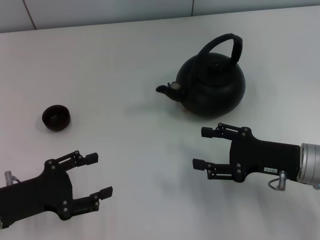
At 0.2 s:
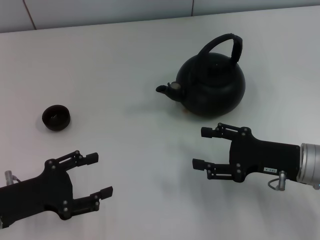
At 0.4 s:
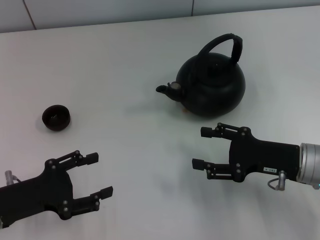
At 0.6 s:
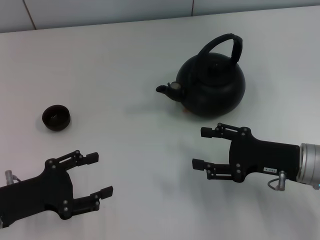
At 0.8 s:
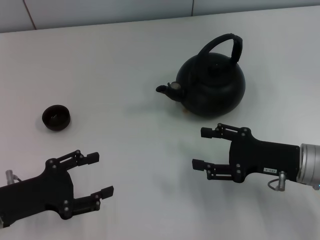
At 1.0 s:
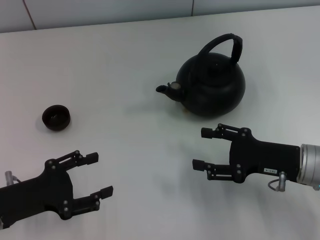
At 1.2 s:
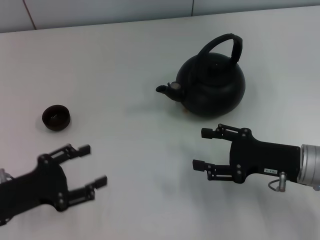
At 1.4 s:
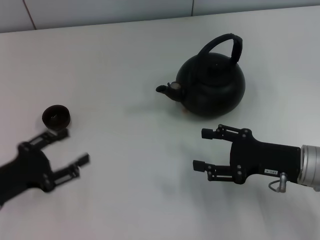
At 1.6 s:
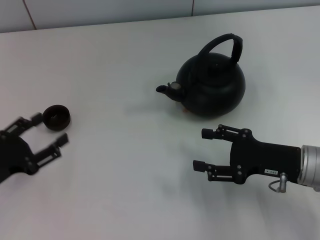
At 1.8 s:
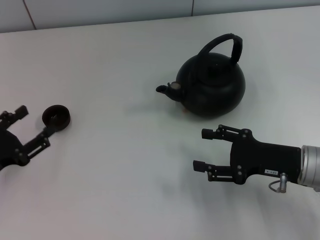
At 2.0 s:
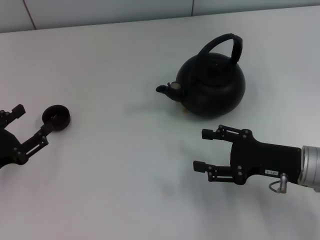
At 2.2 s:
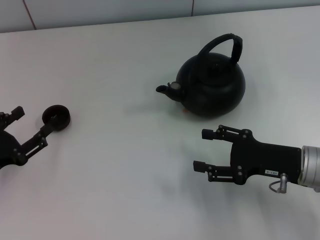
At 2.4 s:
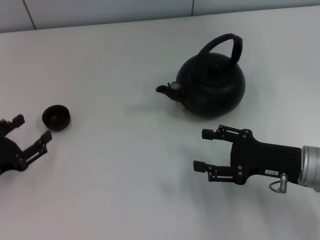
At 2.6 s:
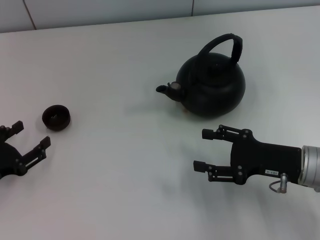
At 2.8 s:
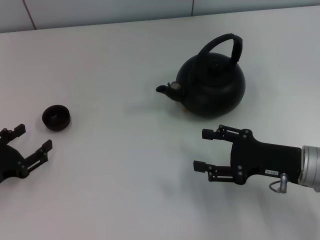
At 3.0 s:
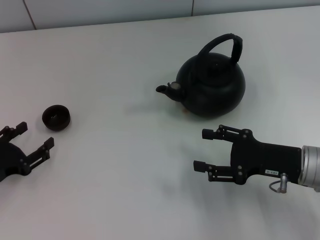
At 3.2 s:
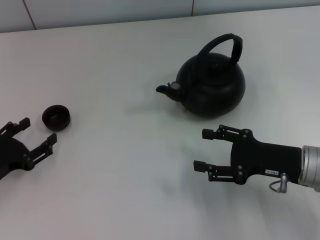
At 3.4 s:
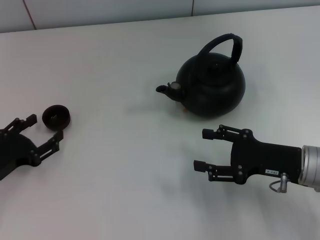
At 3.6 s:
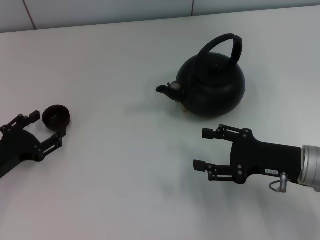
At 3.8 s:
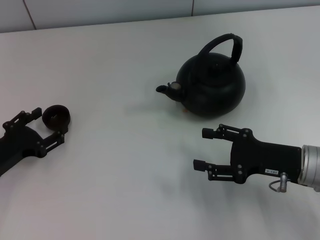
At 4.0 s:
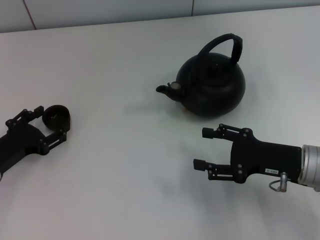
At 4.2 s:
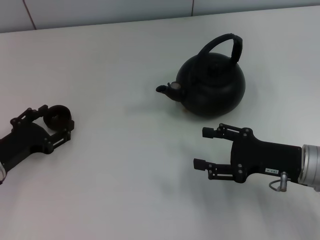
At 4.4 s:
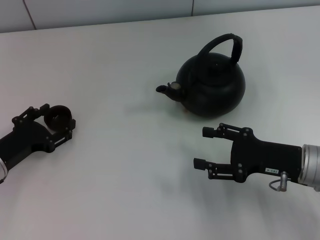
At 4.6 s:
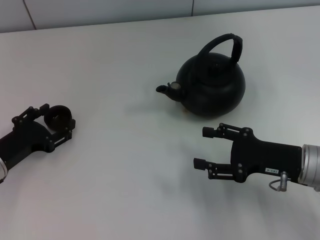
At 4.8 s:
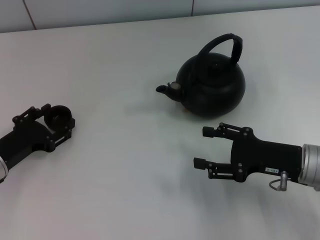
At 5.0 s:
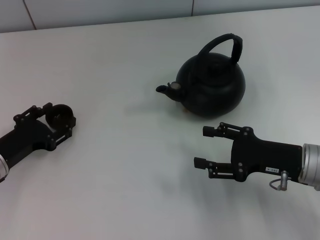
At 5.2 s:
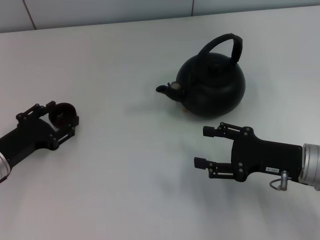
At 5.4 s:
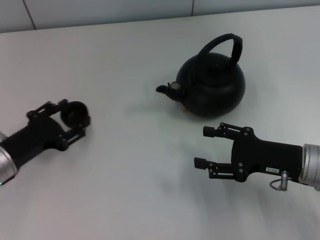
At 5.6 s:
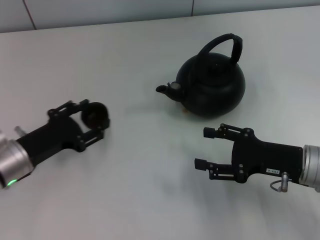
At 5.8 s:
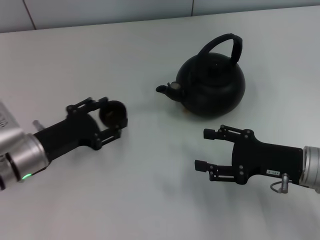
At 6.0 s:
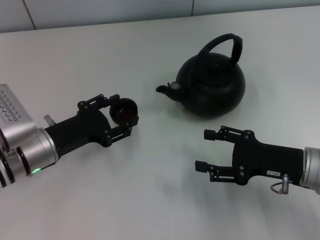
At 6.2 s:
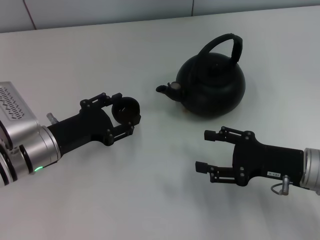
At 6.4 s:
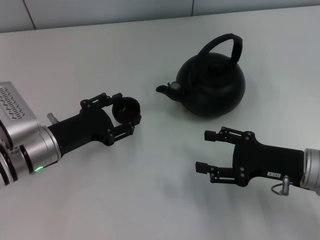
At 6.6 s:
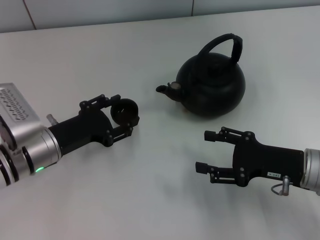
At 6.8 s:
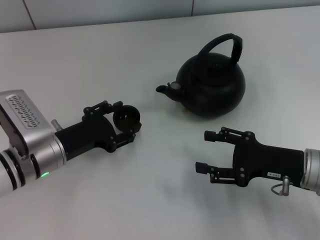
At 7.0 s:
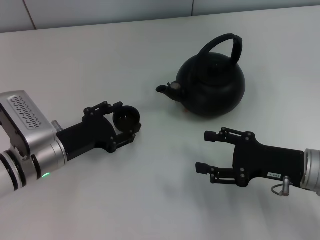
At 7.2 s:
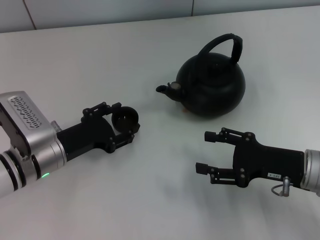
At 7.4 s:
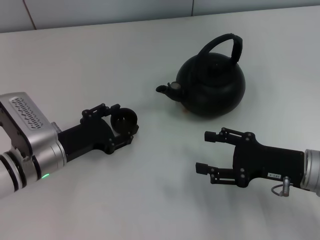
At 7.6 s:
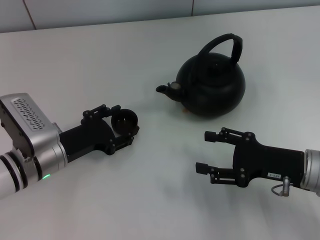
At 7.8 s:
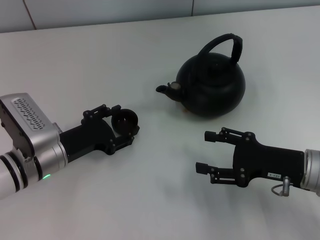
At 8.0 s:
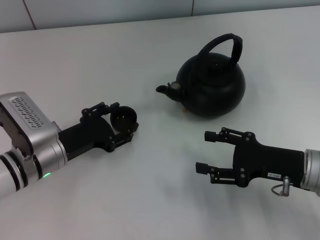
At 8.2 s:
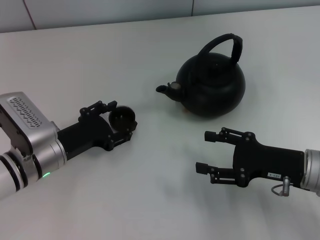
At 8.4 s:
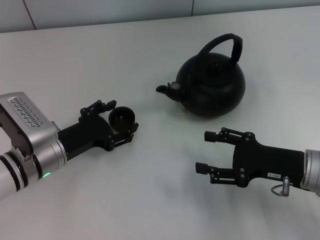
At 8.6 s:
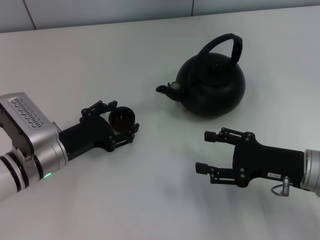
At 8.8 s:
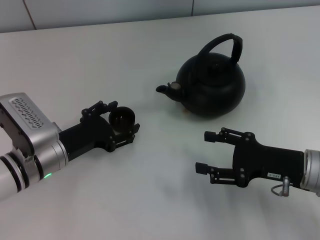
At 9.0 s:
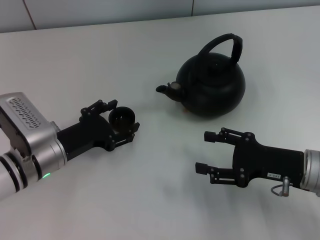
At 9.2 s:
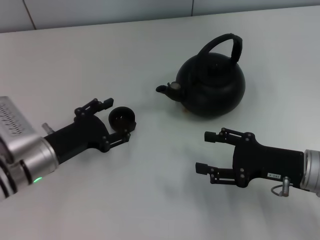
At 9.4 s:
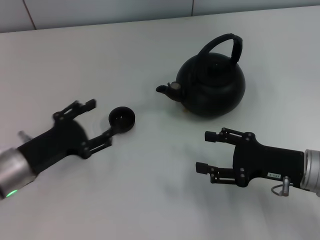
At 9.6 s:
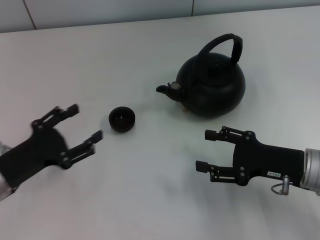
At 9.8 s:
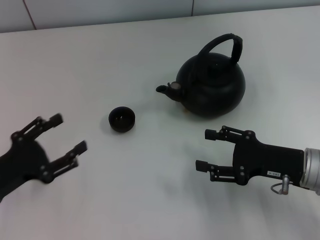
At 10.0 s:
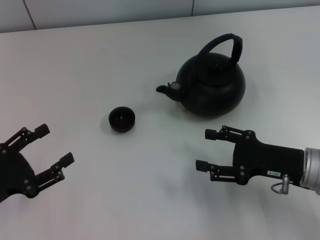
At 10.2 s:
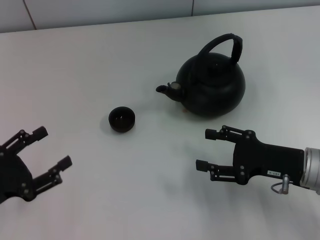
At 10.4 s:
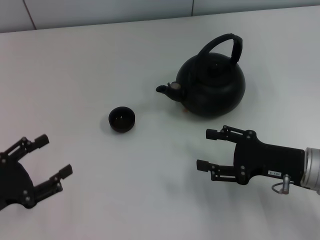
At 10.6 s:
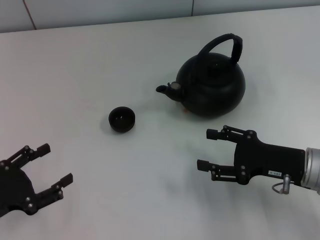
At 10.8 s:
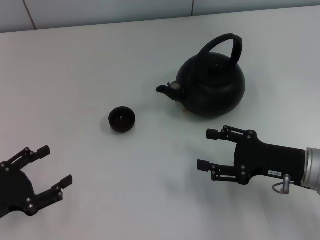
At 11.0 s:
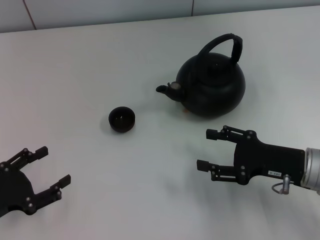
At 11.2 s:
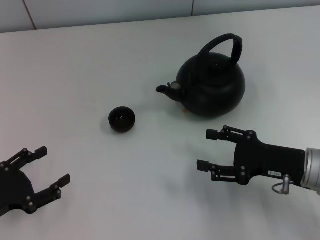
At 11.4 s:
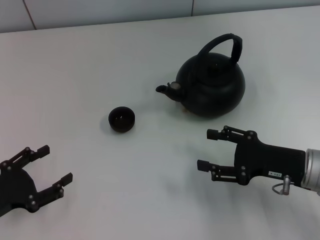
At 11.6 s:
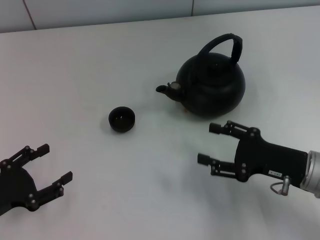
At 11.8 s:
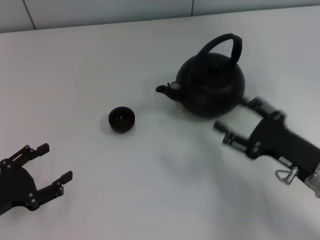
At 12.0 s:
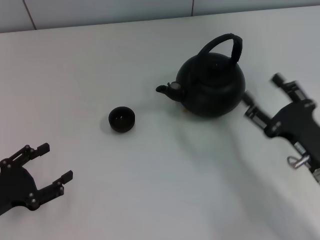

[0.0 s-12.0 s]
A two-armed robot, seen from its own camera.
Task of the whole recording: Grasp the handle of the teapot with one hand and pour tea into the teacup.
Step, 0.0 to 5.2 s: Pick up the teacup with the left gripper.
Step, 5.6 to 9.4 s: Place the teacup in the center of view with the left gripper.
1.6 to 3.0 s: The grippers make only small movements.
3.0 to 4.4 s: The left gripper changes place by about 5 cm.
4.4 to 6.0 s: The left gripper moves to the right, some 10 cm, and closes up.
6.0 to 7.6 s: The grippers stay close to where they were, moving slightly.
7.6 to 9.0 s: The left gripper opens.
9.0 to 10.4 s: The left gripper moves to the left and backward, approximately 15 cm.

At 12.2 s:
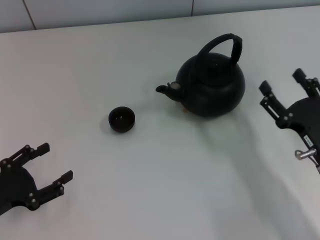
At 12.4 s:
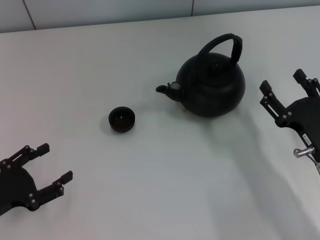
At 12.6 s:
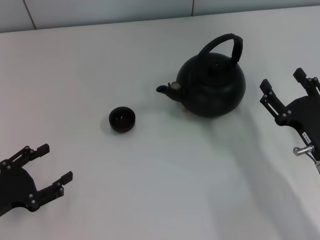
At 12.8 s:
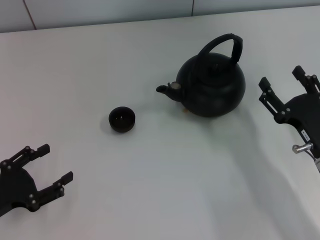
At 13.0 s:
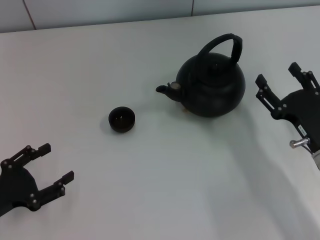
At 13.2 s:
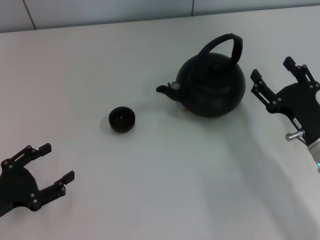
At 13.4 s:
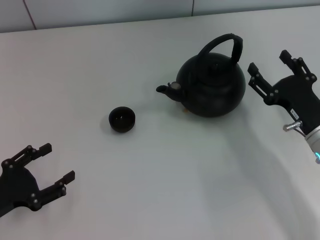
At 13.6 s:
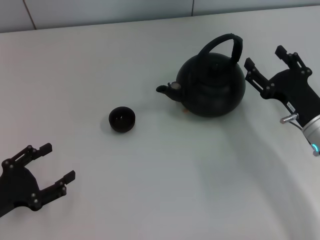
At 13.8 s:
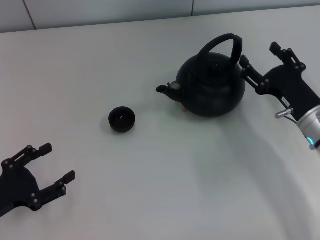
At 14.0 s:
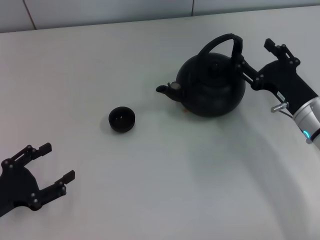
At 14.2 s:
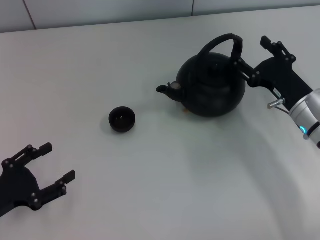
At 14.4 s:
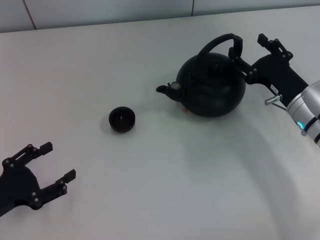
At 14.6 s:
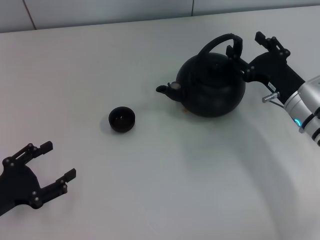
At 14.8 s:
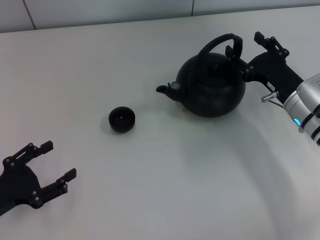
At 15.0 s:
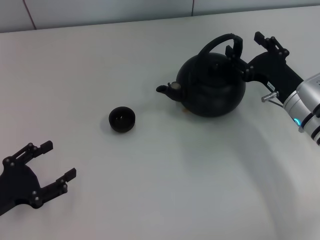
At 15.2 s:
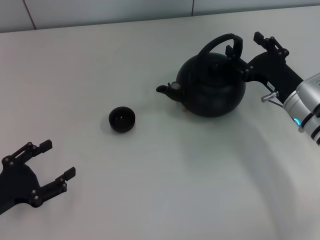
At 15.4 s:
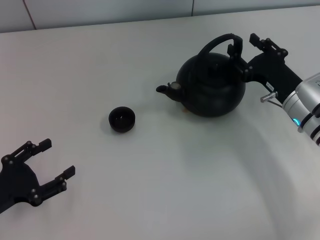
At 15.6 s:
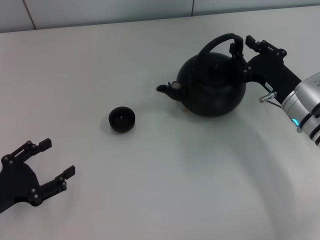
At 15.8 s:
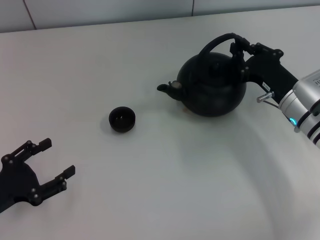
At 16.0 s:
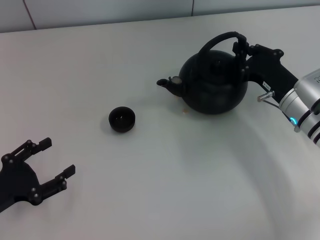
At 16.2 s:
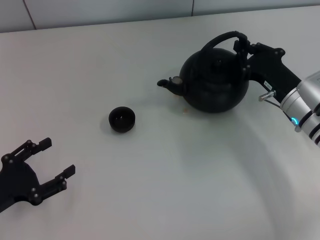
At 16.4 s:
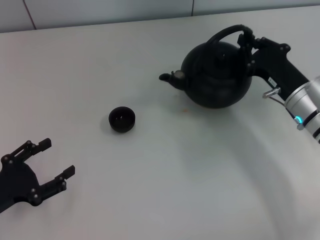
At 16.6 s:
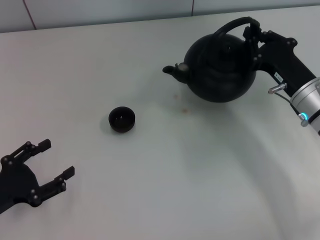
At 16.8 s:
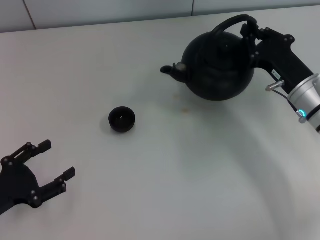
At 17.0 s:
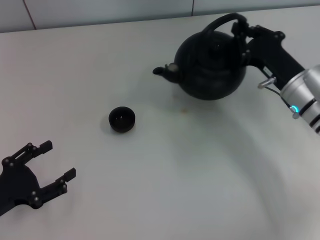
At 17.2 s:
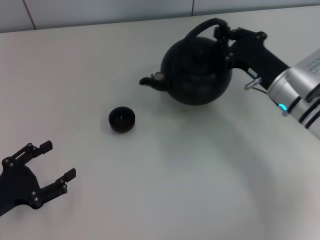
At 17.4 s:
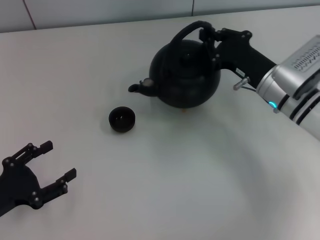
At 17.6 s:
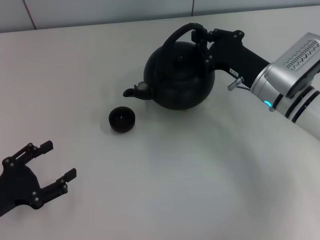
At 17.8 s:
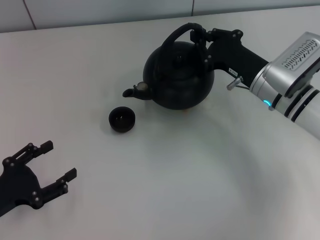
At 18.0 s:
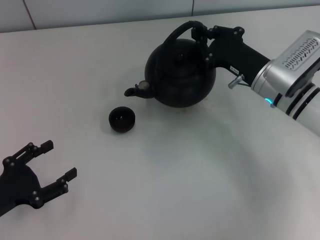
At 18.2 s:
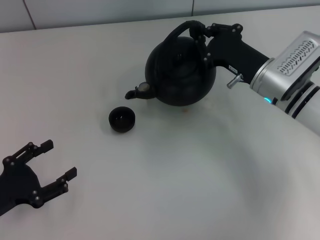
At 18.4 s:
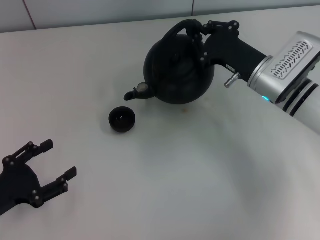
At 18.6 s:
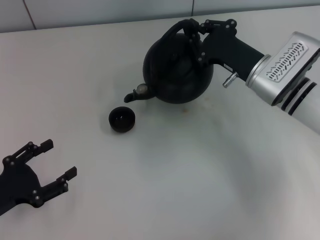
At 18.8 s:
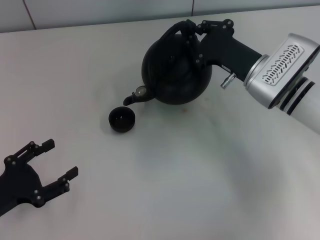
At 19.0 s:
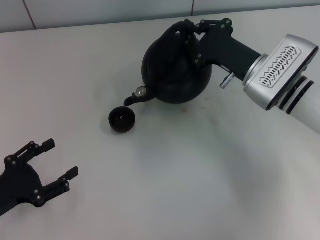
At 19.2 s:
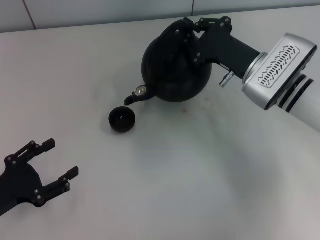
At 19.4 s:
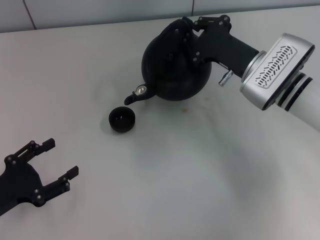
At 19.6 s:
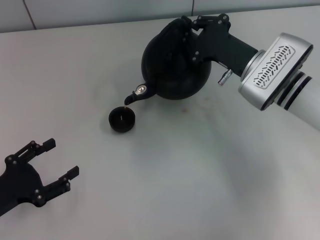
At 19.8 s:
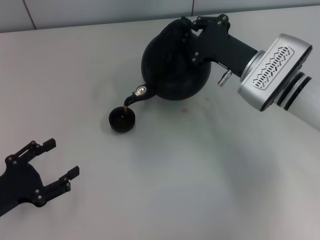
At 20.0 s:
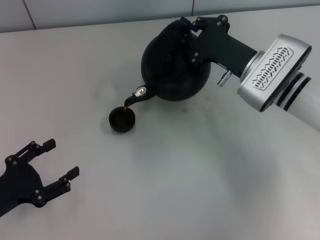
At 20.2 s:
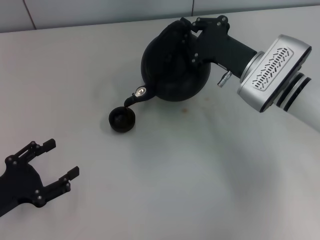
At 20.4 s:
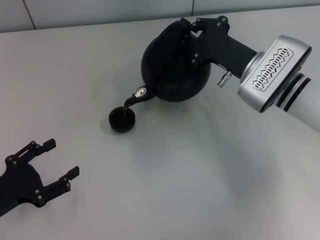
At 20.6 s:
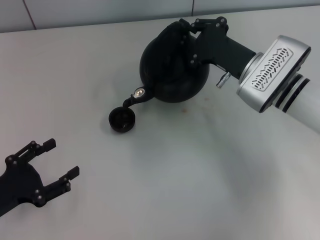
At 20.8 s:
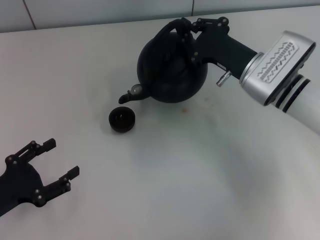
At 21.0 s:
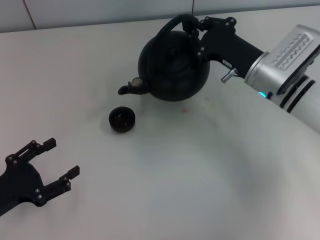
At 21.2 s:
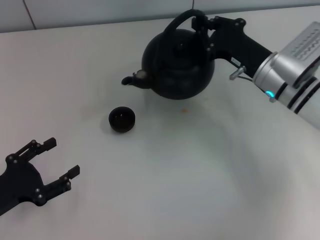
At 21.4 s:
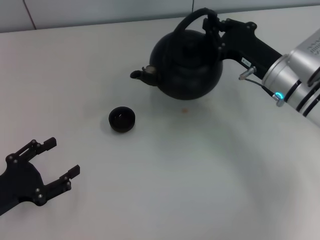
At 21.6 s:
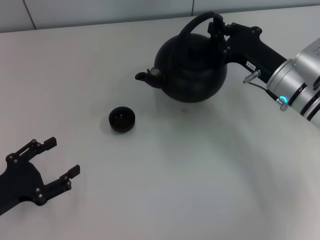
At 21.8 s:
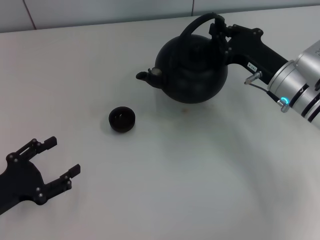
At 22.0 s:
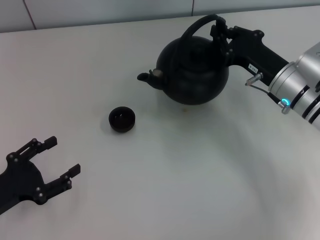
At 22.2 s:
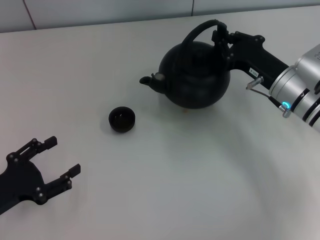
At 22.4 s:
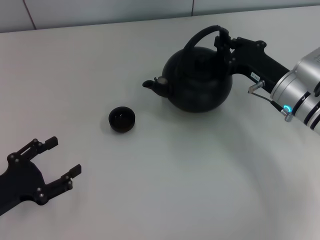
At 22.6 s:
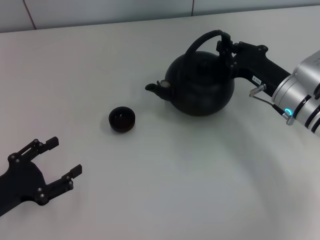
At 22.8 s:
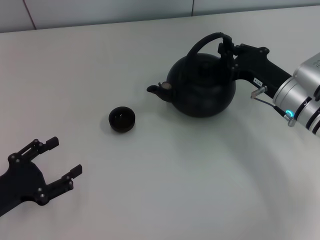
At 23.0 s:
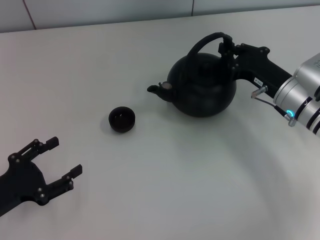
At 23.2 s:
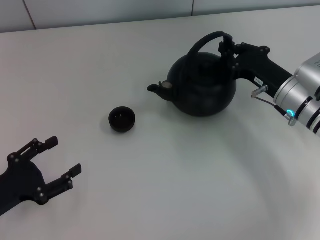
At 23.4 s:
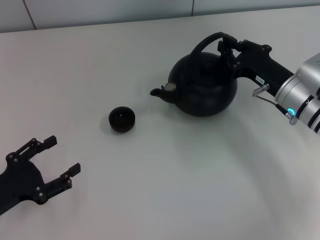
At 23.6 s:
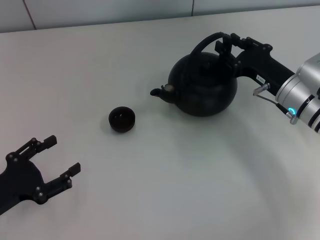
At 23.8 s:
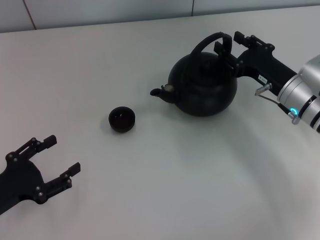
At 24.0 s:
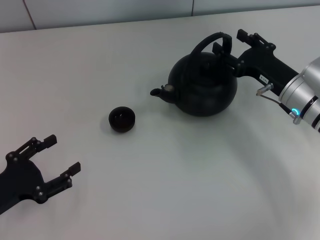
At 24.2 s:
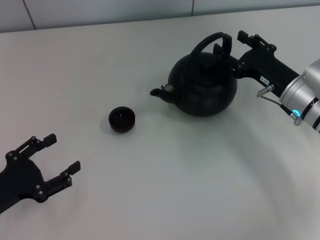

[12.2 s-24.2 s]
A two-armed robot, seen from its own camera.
Task of the whole recording: Grasp the handle of the teapot with one hand and pour tea into the teacup.
Step, 12.2 to 16.4 s: Pick up the teapot with the right gripper.
12.2 to 13.8 s: The right gripper shifts about 10 cm forward.
13.8 to 15.2 s: The grippers make only small movements.
15.2 to 16.6 s: The right gripper closes.
16.6 to 18.2 s: The right gripper shifts by some 5 cm.
18.2 to 19.8 s: The grippers stay close to where they were, moving slightly.
21.2 to 22.6 s: The grippers stay close to where they were, moving slightly.
22.6 to 24.2 s: The right gripper opens its fingers.
